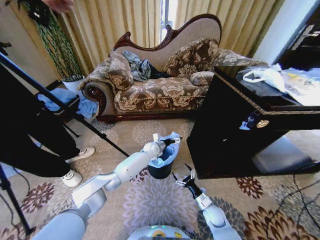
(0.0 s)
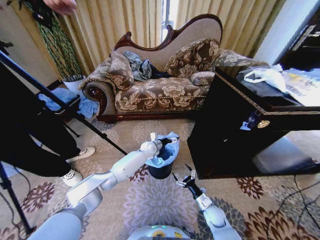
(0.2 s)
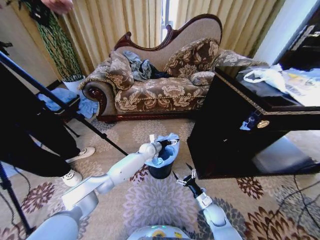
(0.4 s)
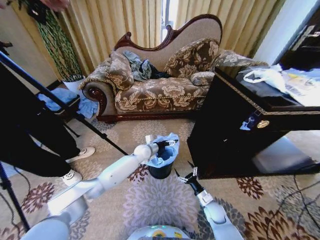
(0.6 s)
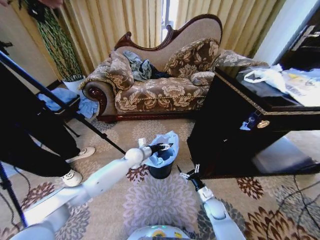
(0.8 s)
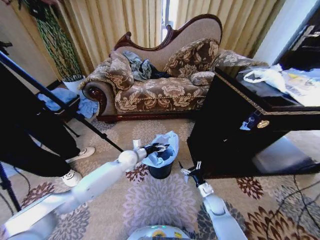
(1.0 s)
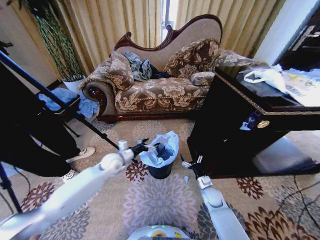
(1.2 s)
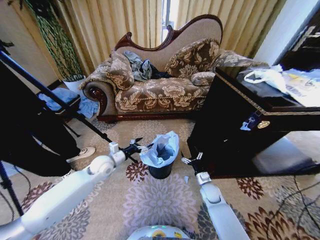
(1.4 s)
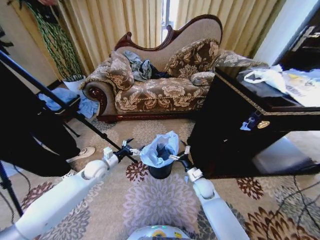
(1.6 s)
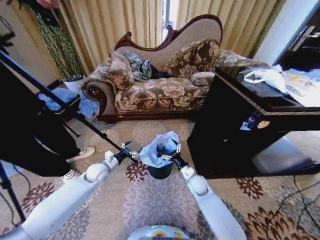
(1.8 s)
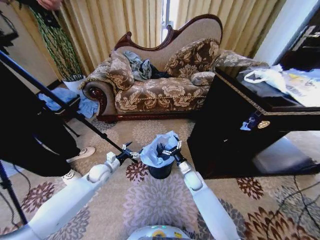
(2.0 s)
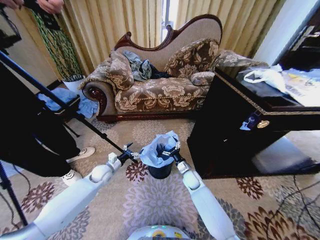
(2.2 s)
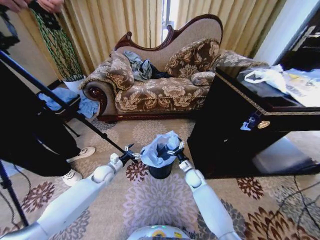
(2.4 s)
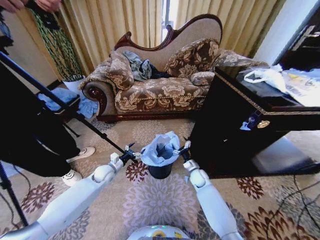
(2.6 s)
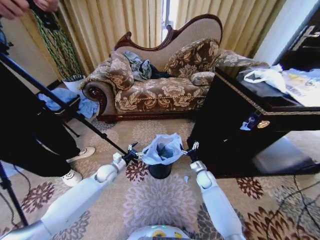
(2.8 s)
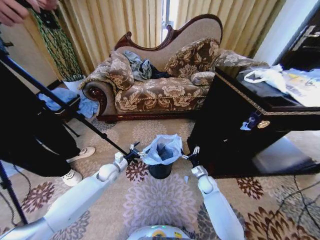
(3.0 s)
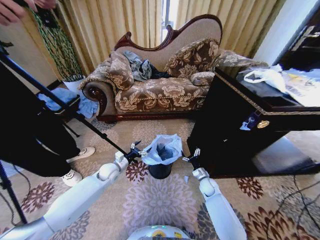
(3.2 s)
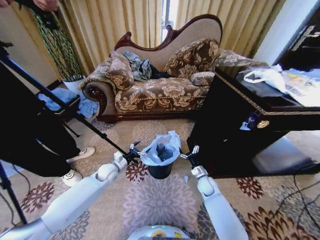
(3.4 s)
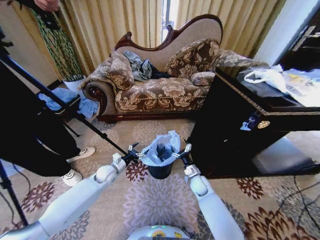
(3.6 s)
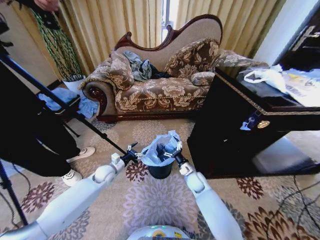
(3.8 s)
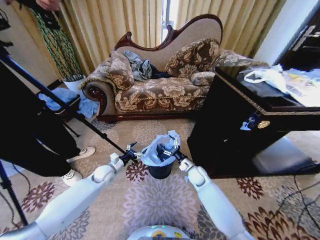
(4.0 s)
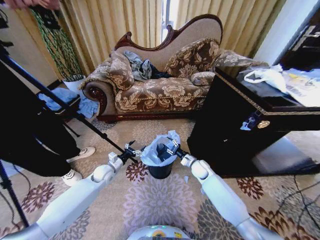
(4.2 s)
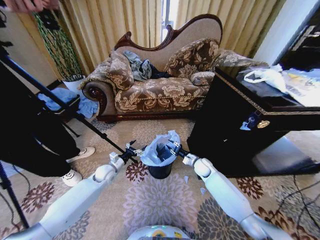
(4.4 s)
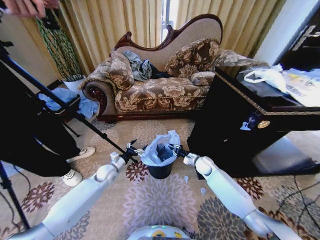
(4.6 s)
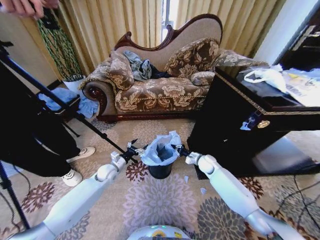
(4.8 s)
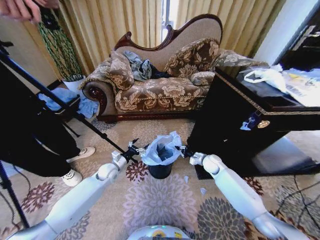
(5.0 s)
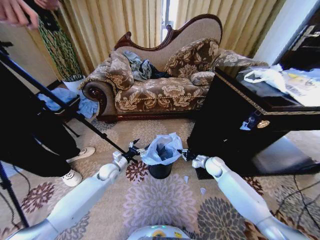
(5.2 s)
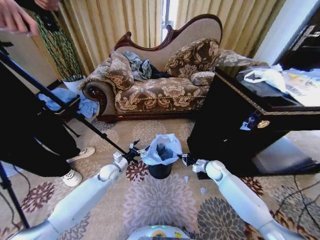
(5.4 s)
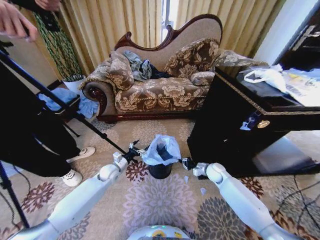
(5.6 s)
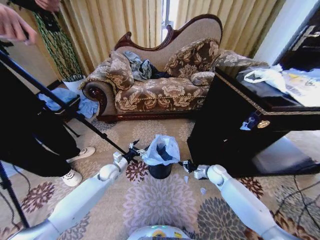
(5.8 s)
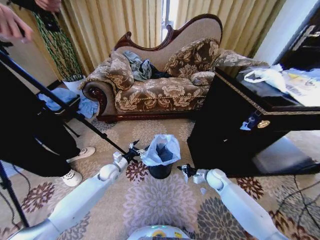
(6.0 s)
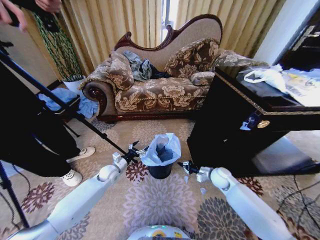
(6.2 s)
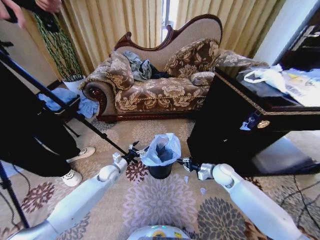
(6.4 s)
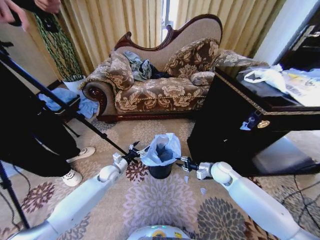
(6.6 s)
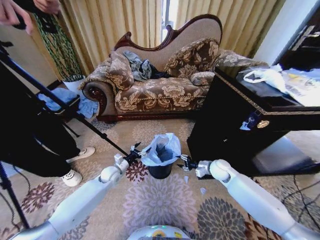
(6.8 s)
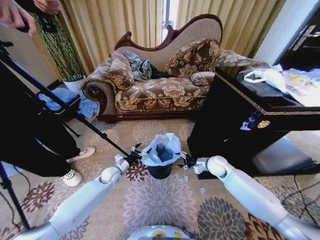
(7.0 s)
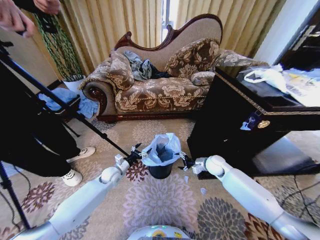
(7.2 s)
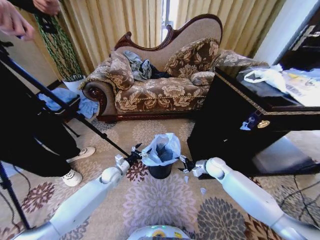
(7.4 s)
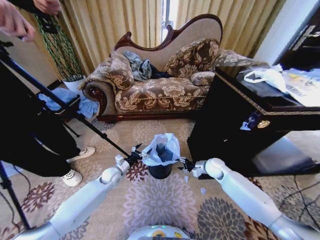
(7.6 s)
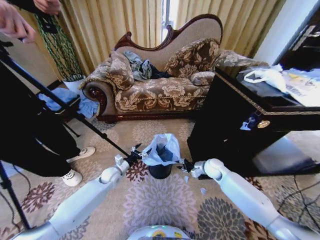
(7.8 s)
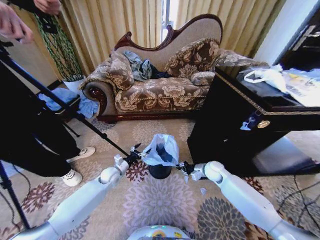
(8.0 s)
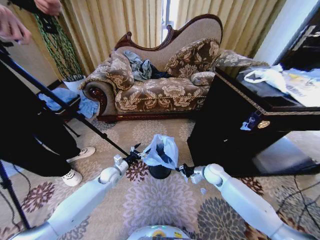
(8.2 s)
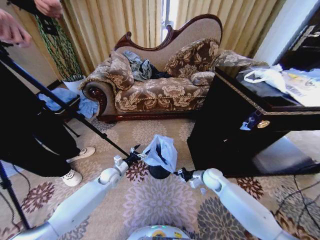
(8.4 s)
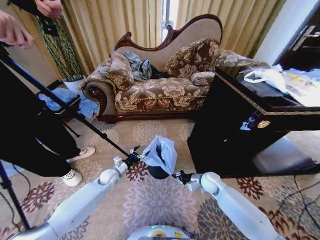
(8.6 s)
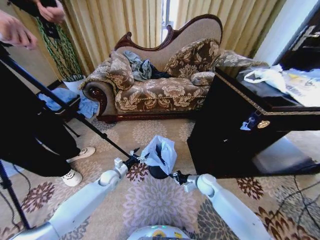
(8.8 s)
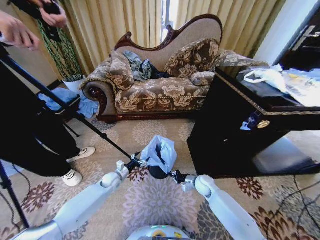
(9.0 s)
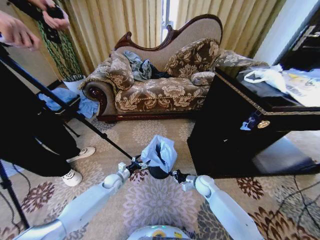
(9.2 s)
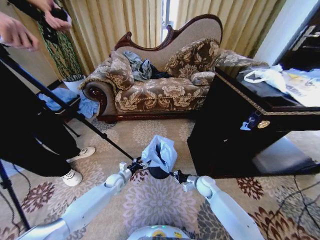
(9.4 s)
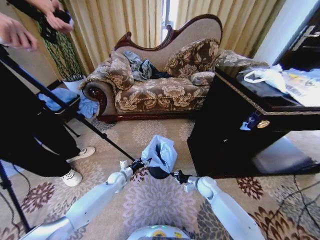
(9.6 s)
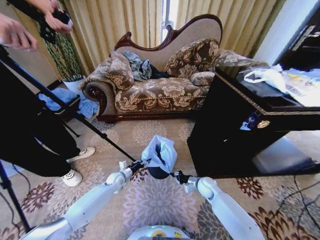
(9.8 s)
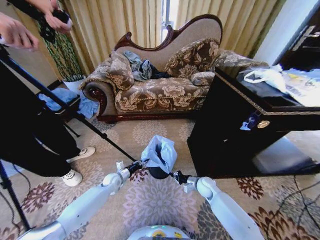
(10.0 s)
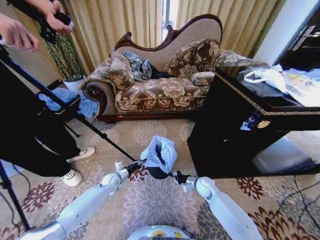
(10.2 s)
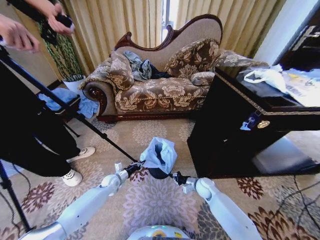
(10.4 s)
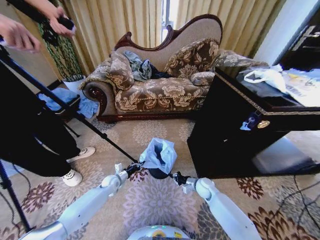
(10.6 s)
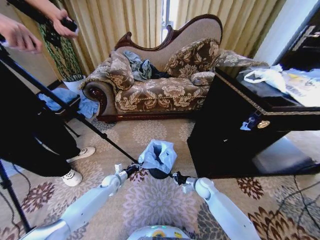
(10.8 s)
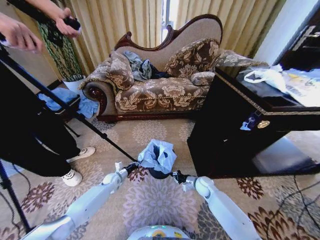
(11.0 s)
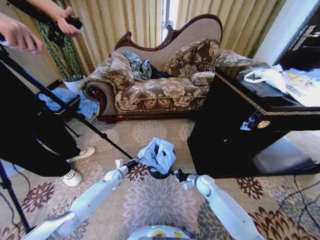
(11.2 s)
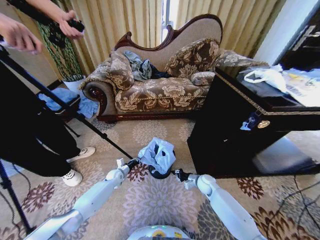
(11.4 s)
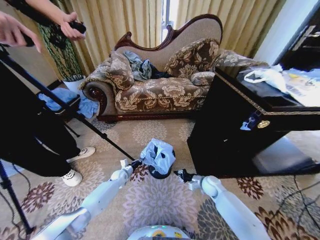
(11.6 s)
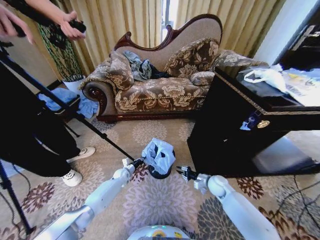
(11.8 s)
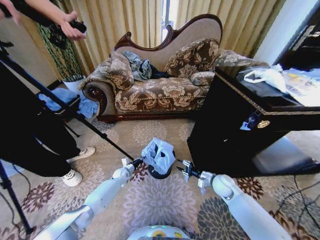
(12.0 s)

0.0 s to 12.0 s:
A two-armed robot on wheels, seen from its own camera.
Task of the whole recording: Place a garbage bag over the trash bin.
0.0 to 1.6 s: The left gripper shifts about 30 cm to the left and backward, while the right gripper travels forward and upward by about 15 cm.
1.6 to 3.0 s: The grippers both shift downward by approximately 5 cm.
3.0 to 4.4 s: The right gripper is displaced upward and forward by about 10 cm, and closes.
4.4 to 6.0 s: The right gripper moves to the right and backward, about 10 cm, and closes its fingers.
6.0 to 7.6 s: The right gripper moves upward, some 5 cm, and opens.
7.6 to 9.0 s: The right gripper goes approximately 10 cm downward, backward and to the left, and closes; the left gripper moves roughly 5 cm.
9.0 to 10.4 s: The left gripper closes its fingers.
10.4 to 12.0 s: The left gripper goes approximately 5 cm forward, while the right gripper moves upward and to the right, approximately 10 cm, and opens up.

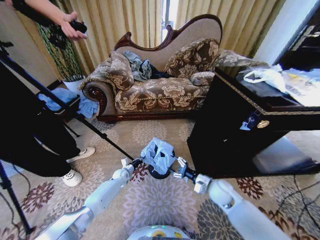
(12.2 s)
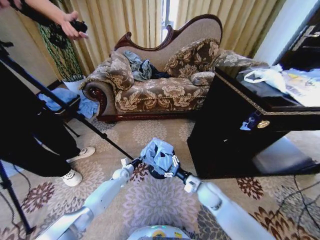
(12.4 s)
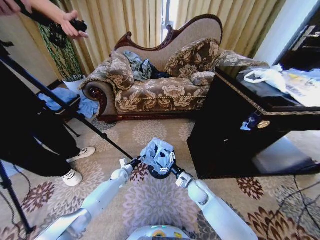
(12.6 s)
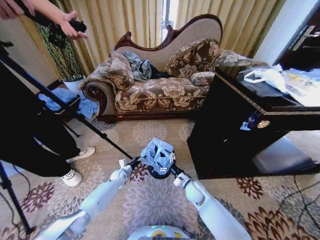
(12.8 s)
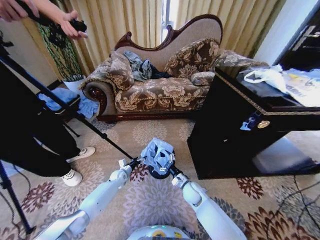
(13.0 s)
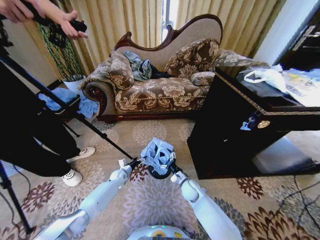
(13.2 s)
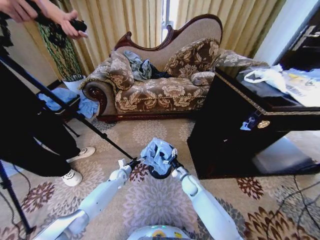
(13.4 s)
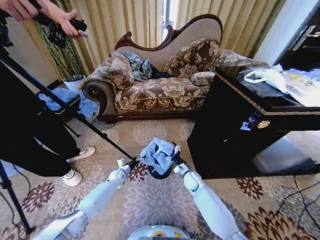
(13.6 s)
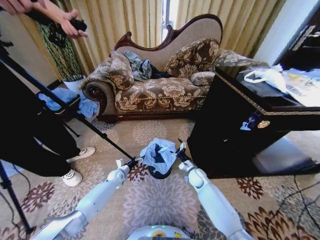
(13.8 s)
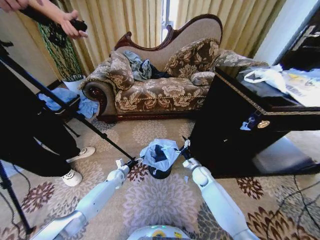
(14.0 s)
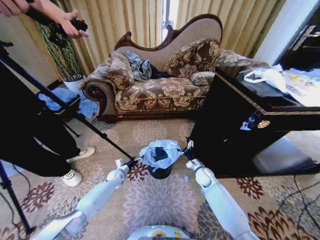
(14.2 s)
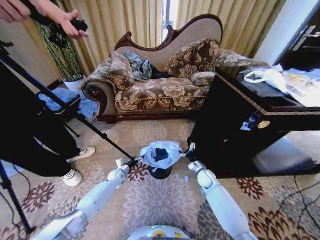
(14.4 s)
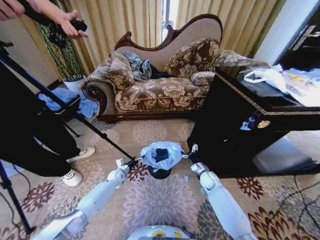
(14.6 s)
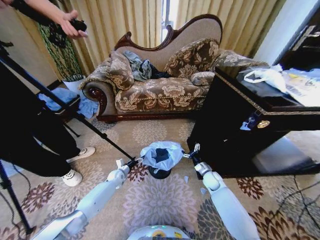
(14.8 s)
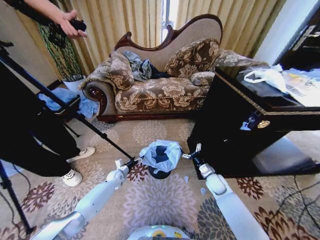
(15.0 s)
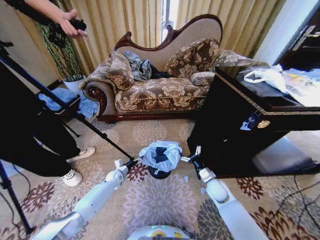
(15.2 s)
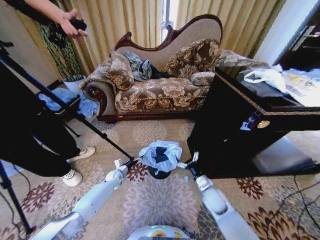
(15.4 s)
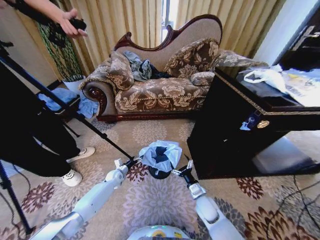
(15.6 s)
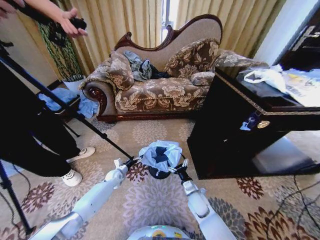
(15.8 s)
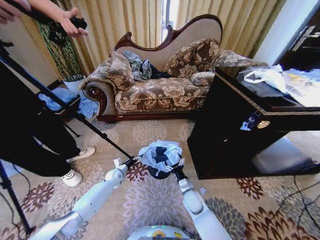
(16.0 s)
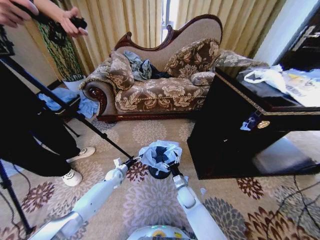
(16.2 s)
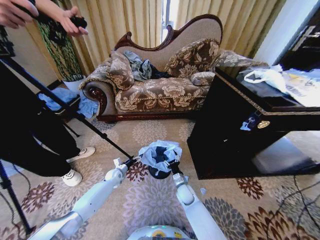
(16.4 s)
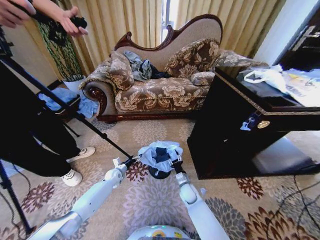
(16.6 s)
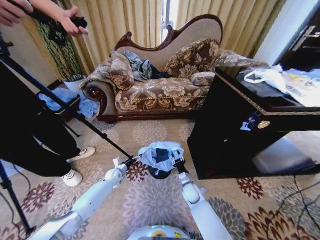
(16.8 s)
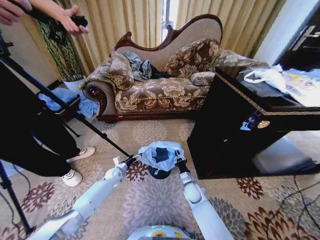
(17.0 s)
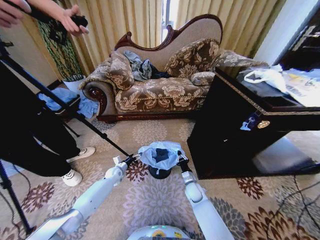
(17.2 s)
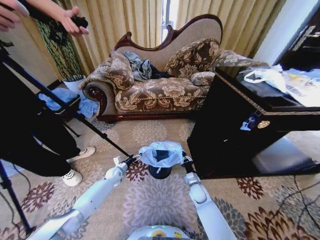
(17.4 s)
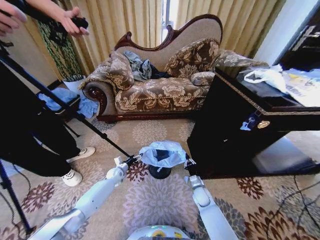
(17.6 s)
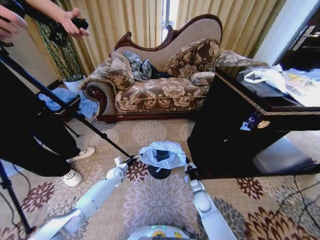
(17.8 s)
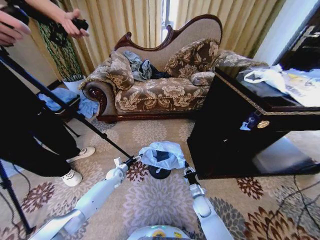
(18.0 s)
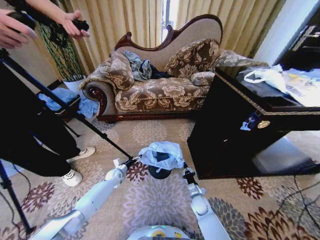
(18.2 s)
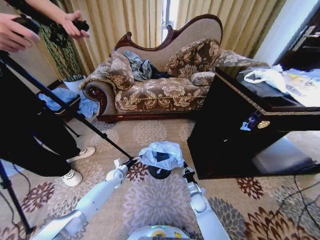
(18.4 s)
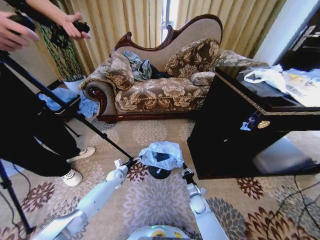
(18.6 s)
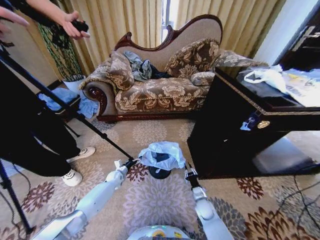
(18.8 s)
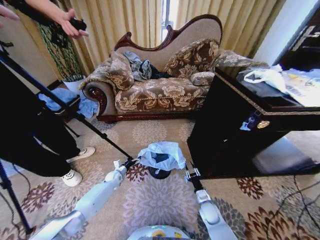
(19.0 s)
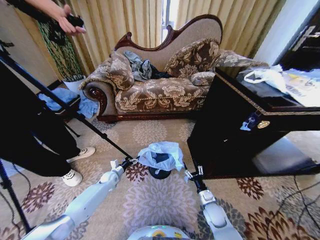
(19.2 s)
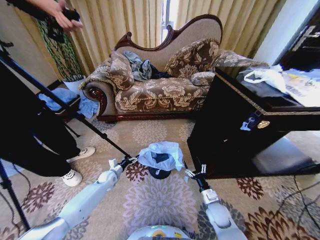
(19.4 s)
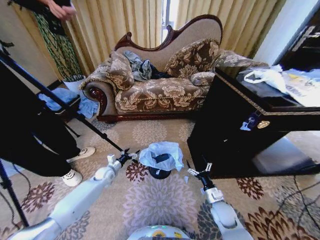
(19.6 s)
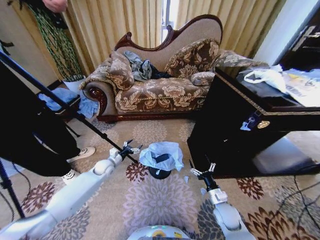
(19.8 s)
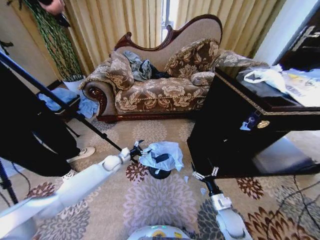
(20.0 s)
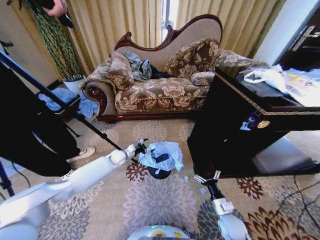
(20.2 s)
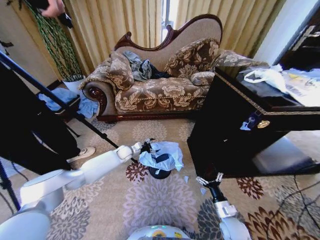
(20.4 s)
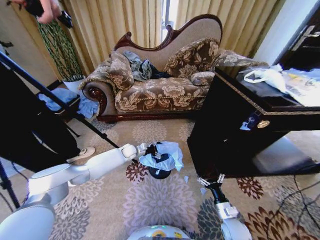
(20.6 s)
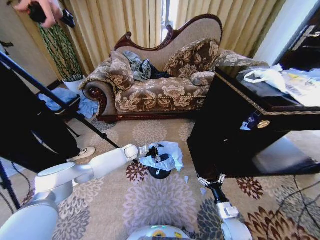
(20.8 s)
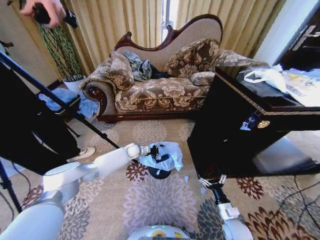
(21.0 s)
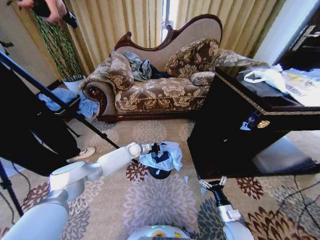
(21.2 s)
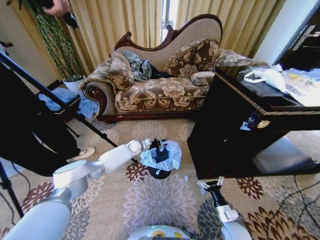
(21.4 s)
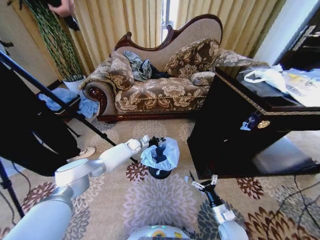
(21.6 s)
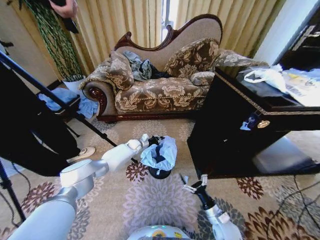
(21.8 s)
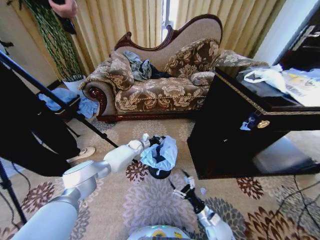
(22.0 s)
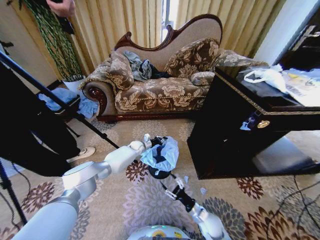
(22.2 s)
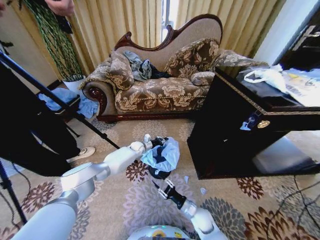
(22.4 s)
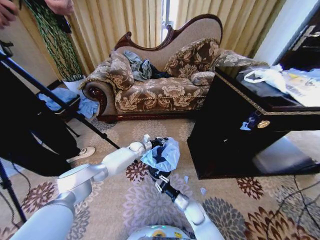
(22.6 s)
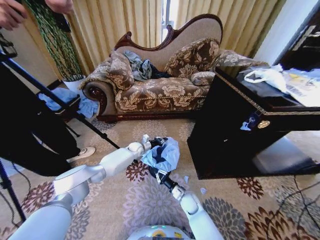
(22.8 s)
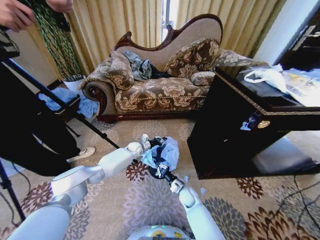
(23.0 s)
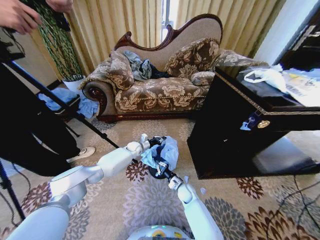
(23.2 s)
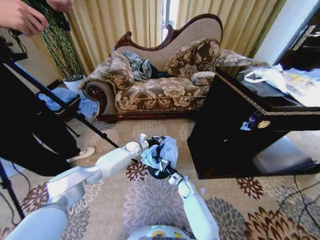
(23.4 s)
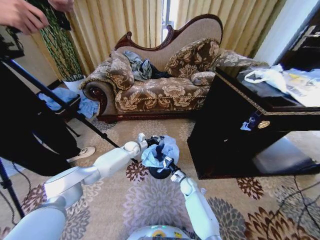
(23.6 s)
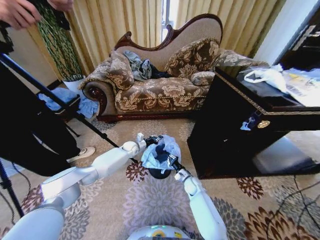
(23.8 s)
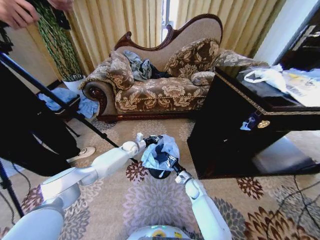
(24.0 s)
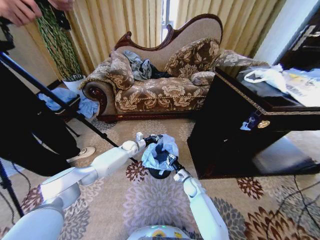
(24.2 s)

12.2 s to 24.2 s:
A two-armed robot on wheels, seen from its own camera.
Task of the whole recording: Place a garbage bag over the trash bin.
12.2 to 13.8 s: The right gripper is displaced forward, downward and to the left by about 15 cm. The left gripper opens.
13.8 to 15.2 s: The right gripper goes roughly 10 cm backward and to the right.
15.2 to 16.6 s: The right gripper shifts roughly 15 cm to the left and downward, and closes its fingers.
16.6 to 18.2 s: The right gripper goes about 10 cm to the right and downward, and closes up.
18.2 to 19.8 s: The right gripper shifts about 15 cm upward, to the right and backward, and opens up. Meanwhile the left gripper travels upward by roughly 10 cm.
19.8 to 21.2 s: The right gripper moves backward, about 5 cm, while the left gripper shifts roughly 20 cm forward and to the right.
21.2 to 22.6 s: The right gripper travels to the left and forward by some 15 cm, and closes its fingers; the left gripper closes its fingers.
22.6 to 24.2 s: The right gripper goes approximately 10 cm forward.
